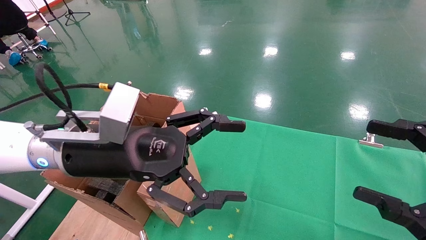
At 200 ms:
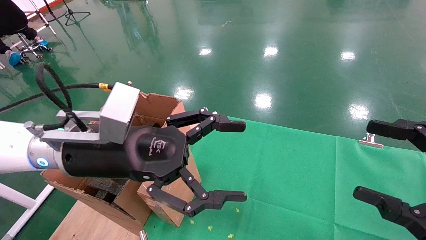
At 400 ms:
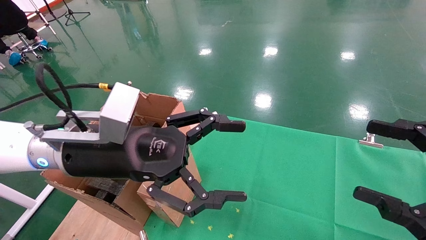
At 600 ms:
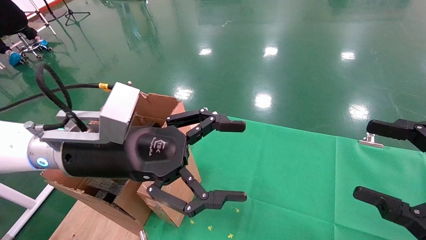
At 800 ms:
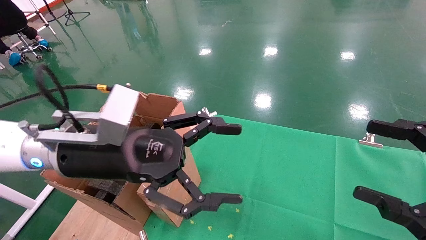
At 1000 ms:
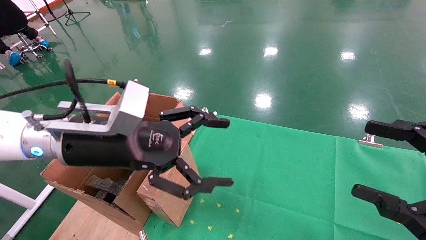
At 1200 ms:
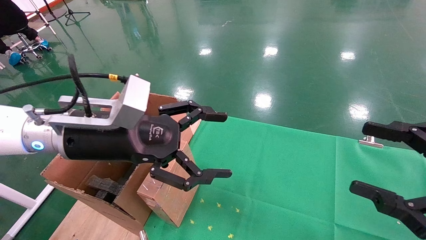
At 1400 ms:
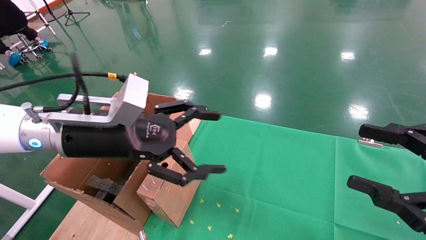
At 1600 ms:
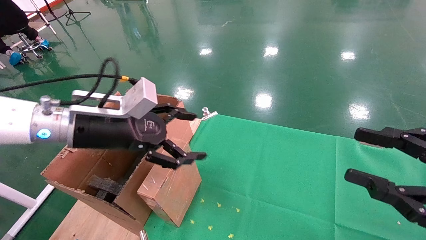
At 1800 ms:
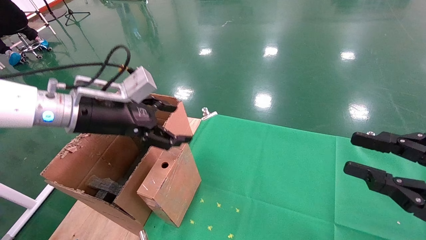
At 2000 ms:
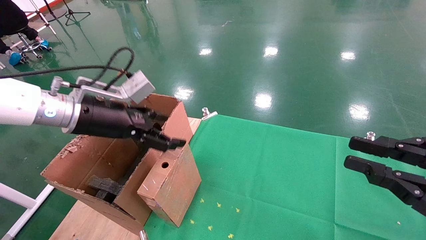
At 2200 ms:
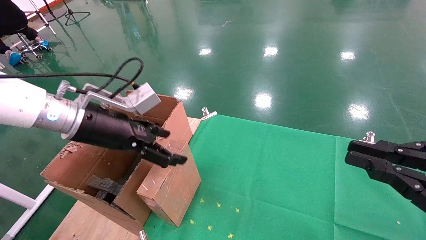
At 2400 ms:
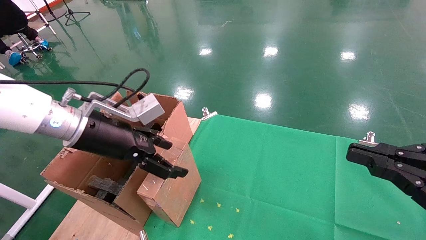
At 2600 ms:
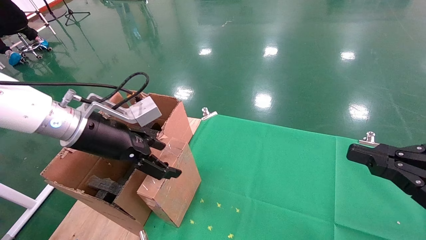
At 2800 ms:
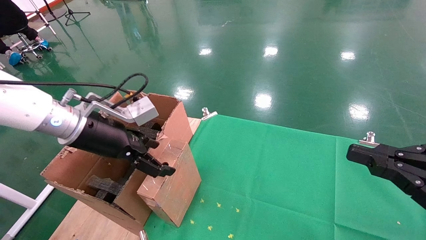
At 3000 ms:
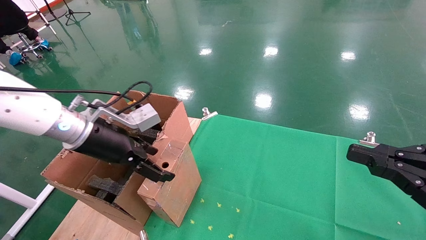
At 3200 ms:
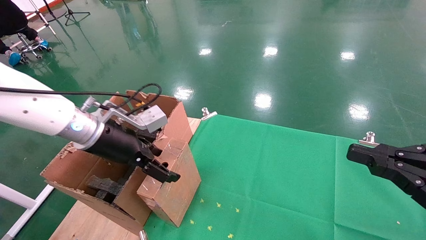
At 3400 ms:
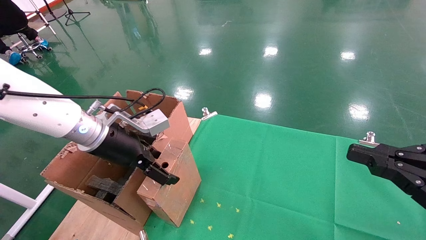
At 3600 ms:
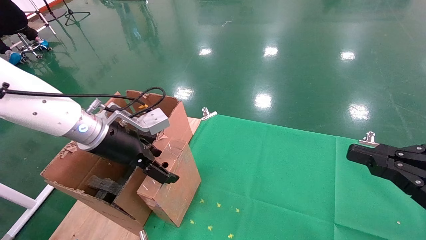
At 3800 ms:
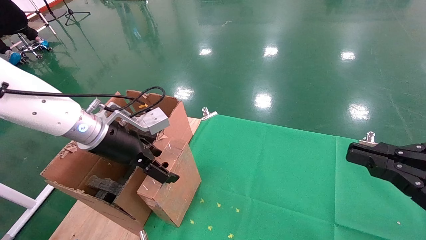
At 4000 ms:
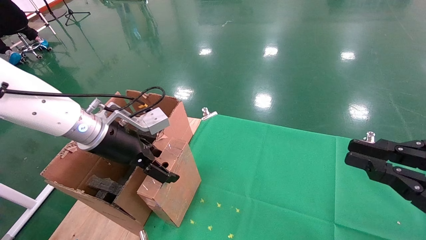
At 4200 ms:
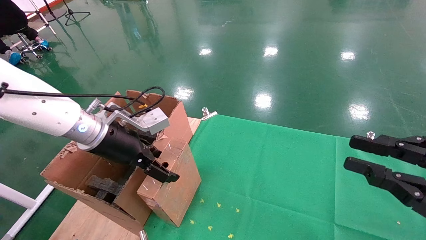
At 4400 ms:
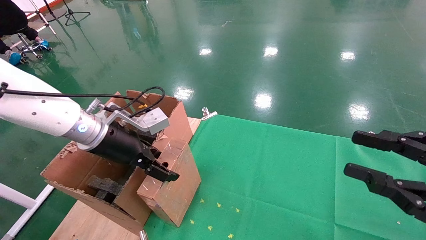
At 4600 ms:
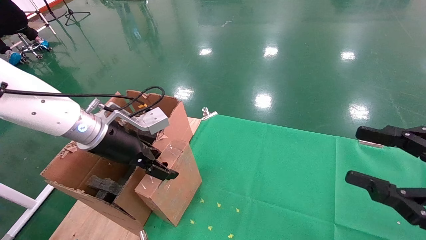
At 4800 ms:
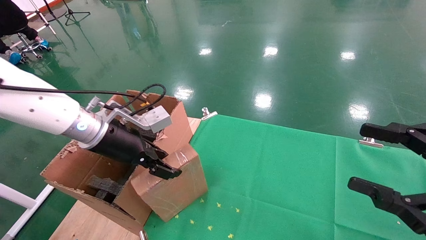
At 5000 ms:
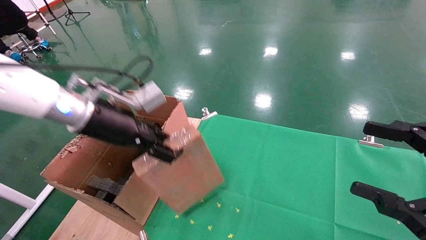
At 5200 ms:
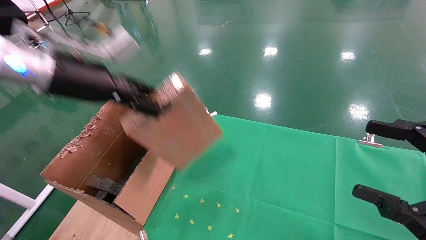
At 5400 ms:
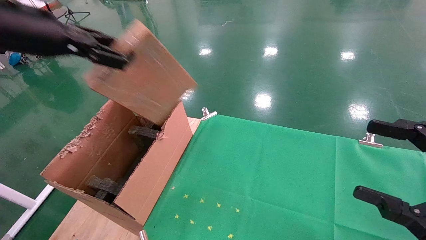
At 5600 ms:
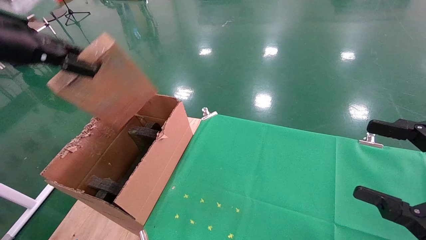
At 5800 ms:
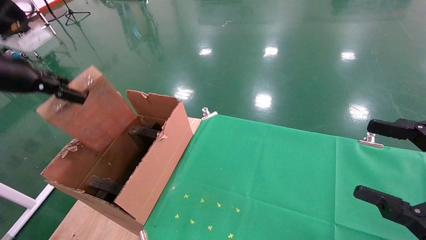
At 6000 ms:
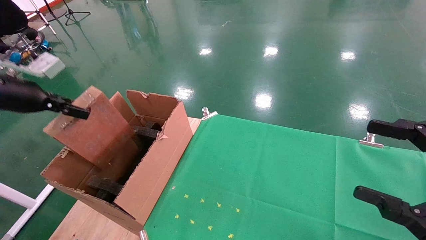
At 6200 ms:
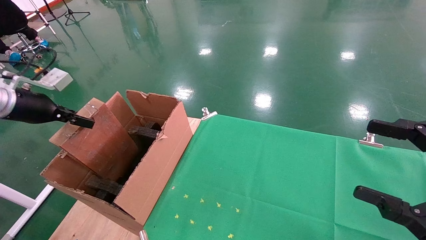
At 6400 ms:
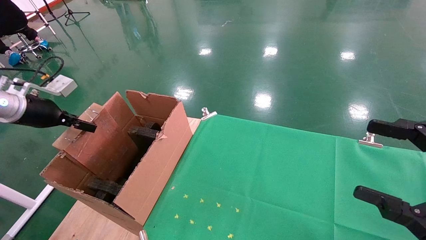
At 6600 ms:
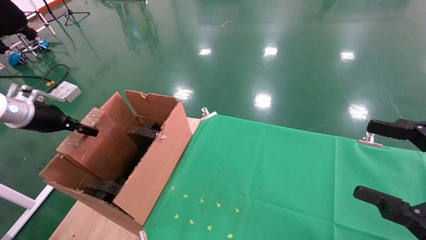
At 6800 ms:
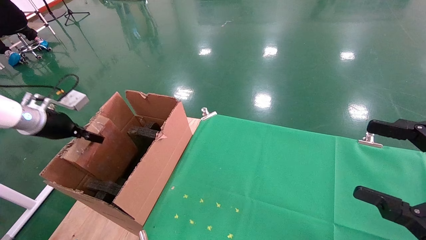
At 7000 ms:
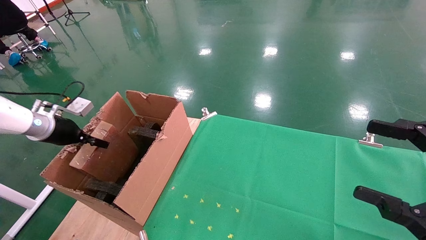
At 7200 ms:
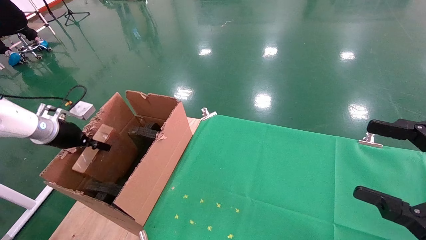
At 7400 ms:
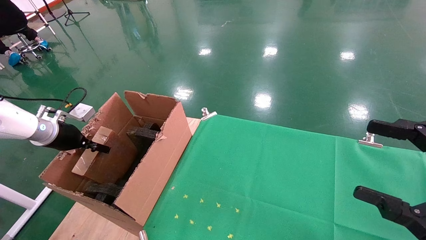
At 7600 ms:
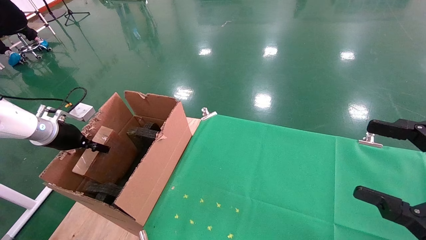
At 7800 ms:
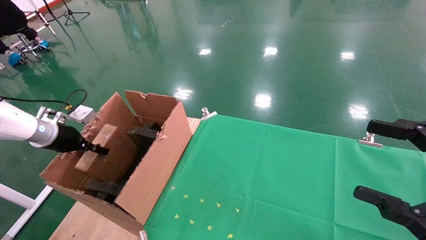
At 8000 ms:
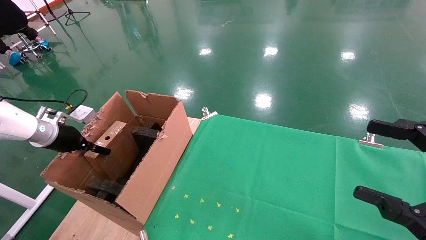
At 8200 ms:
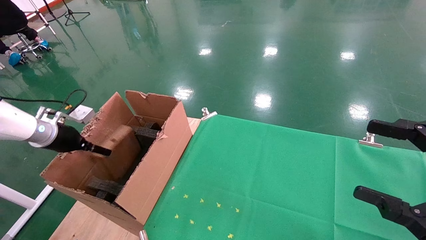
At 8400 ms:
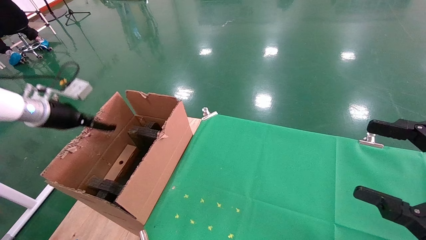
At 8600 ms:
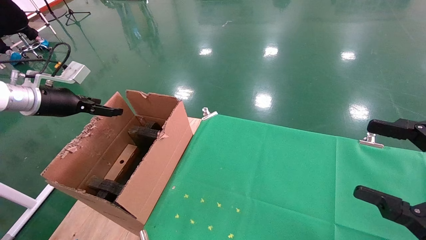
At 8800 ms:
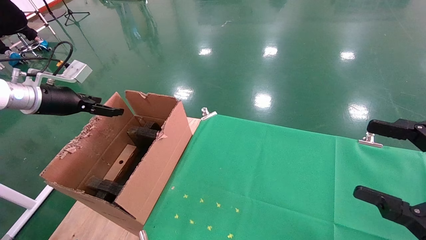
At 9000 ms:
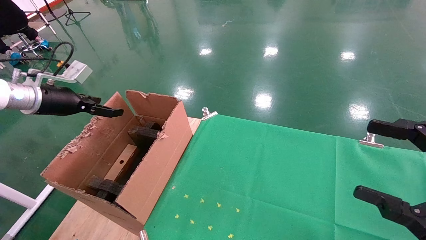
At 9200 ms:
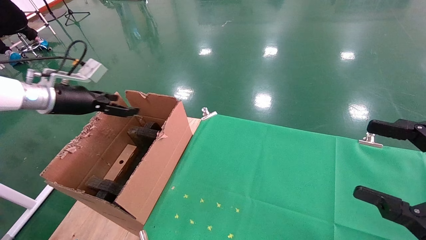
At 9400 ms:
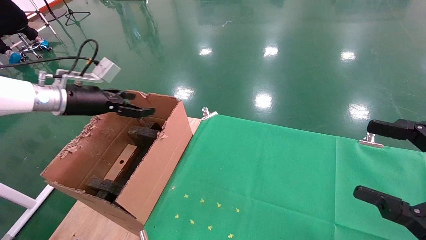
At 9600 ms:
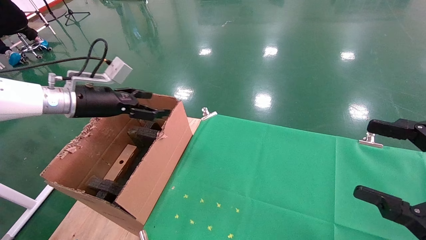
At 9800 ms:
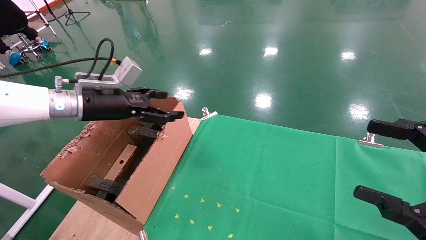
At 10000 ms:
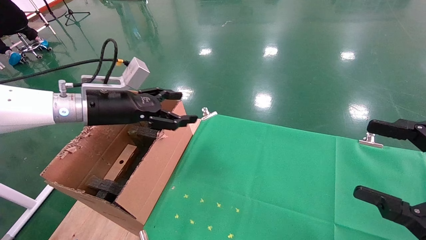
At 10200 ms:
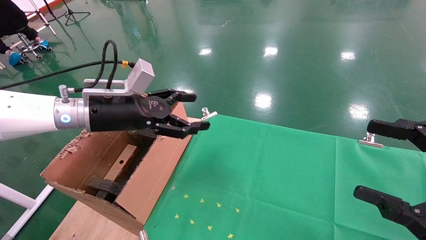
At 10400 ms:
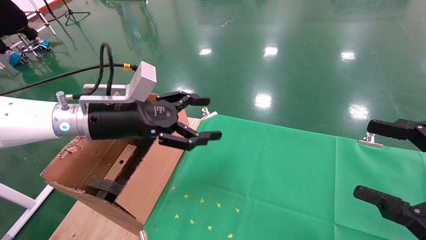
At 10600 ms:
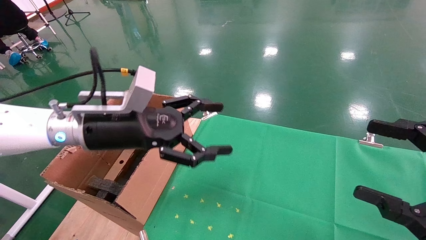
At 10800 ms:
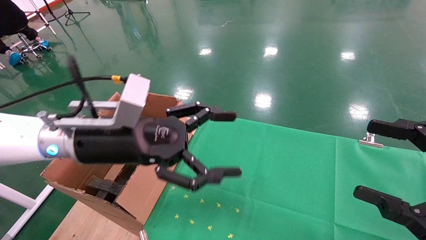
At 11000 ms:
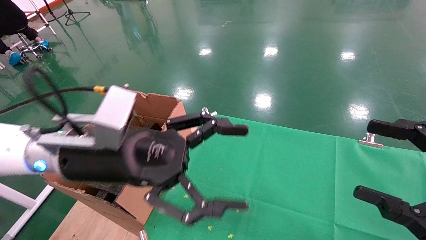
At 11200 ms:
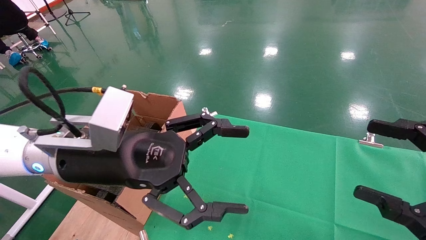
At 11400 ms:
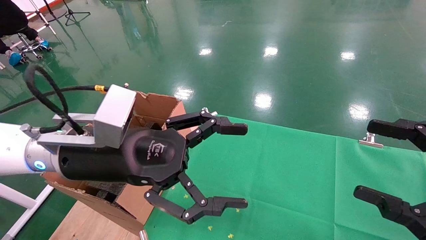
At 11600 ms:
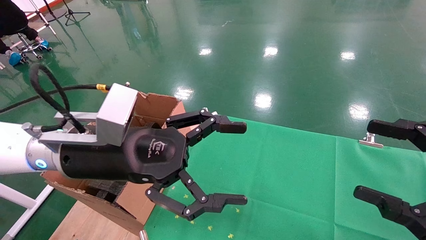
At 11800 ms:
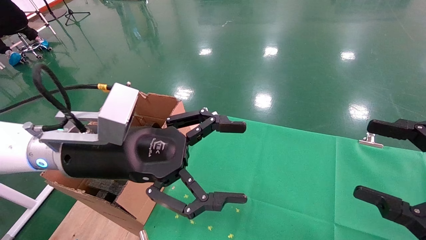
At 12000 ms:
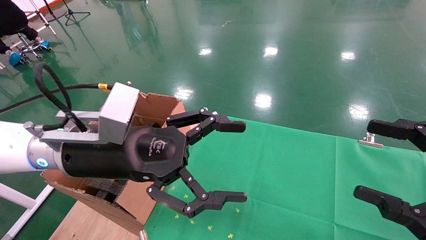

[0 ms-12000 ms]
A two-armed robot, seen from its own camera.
Task of the whole recording: using a robotic arm to pick up a cardboard box and palace it the carton.
Step, 1200 ms to 4600 ms: Pick up the mouse and the power cord paper box.
Step, 4800 ms to 7800 ms: Place the mouse and the power cord paper box into the container.
0 ms to 1600 ms: The left gripper moves approximately 5 cm.
1600 ms to 3000 ms: The right gripper closes its fingers.
3000 ms to 4400 ms: There are only small adjustments of the grippers.
4400 ms to 6000 ms: The right gripper opens; the left gripper shifts about 20 cm to the left, and closes its fingers.
6000 ms to 7600 ms: The left gripper moves downward and forward, approximately 15 cm.
7600 ms to 9000 ms: The left gripper shifts roughly 10 cm upward, and opens up.
9000 ms to 10400 ms: The left gripper travels to the right by approximately 20 cm.
10400 ms to 12000 ms: The left gripper goes approximately 10 cm backward and to the right.

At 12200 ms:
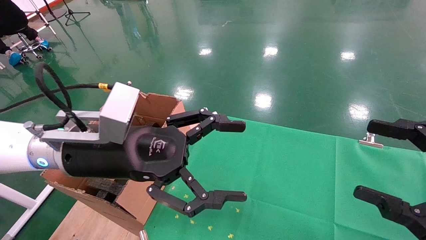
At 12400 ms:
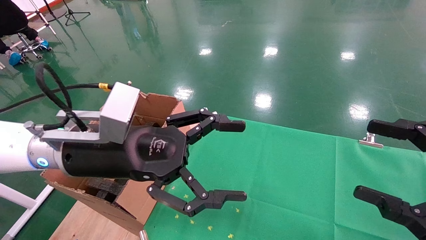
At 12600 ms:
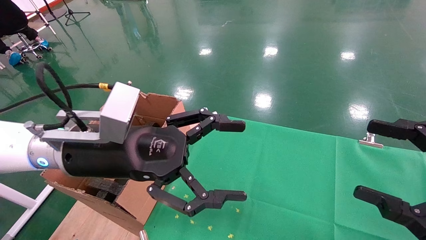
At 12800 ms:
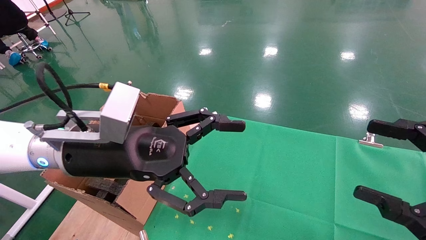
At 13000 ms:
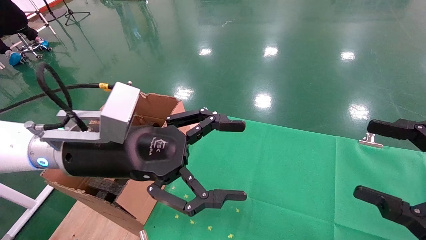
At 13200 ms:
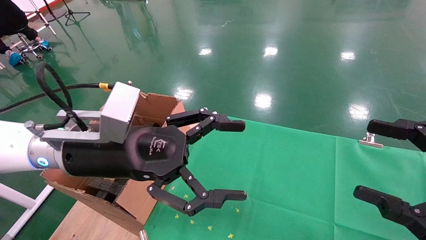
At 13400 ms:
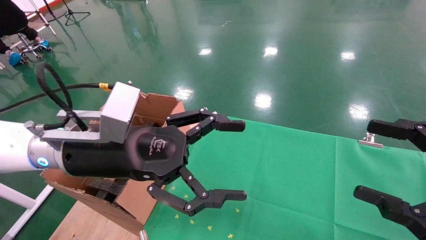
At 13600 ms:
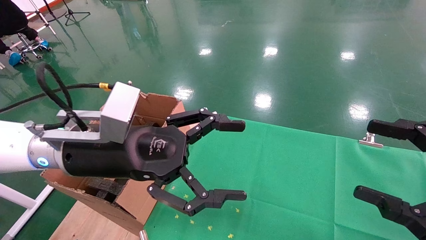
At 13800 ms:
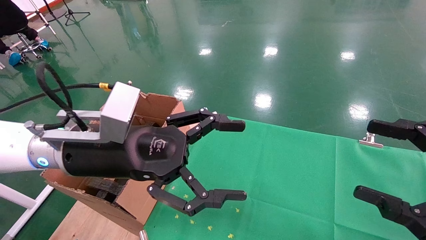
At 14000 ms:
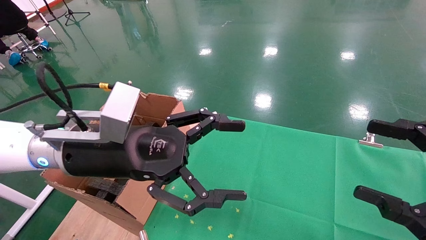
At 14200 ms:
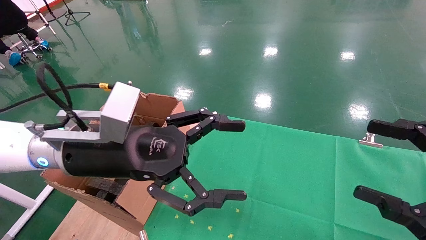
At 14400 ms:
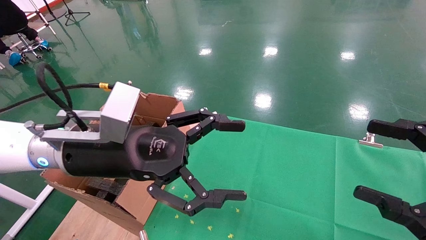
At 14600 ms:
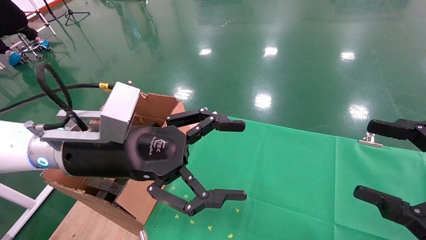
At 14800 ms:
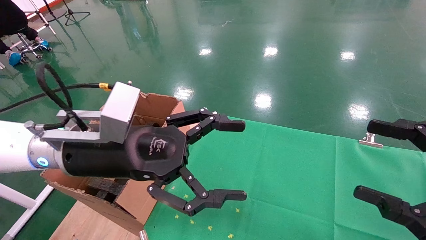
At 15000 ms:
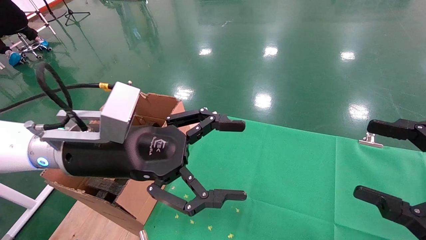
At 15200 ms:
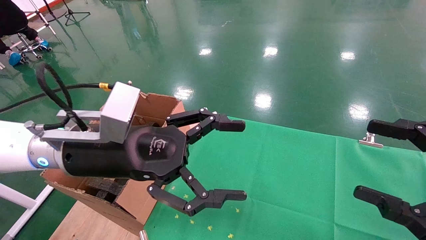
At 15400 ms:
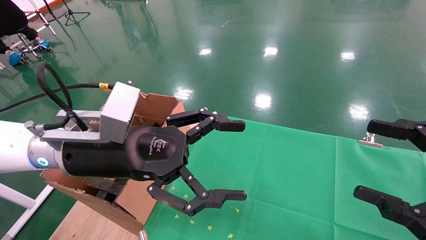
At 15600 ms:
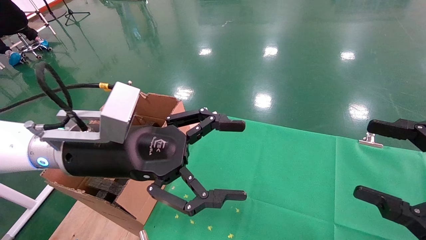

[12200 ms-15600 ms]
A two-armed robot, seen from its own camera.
Task of the whole recording: using a robotic arm to pick up a cardboard box and palace it the carton.
12200 ms to 15600 ms: The two grippers keep their place.
